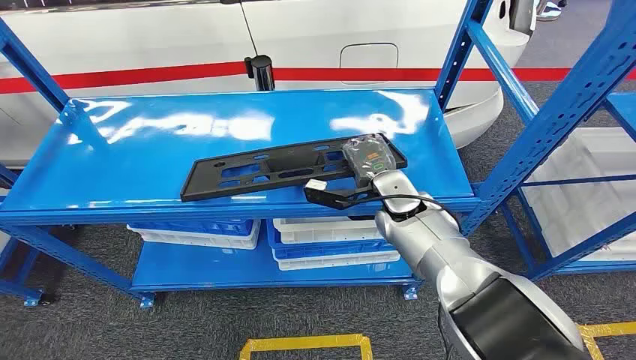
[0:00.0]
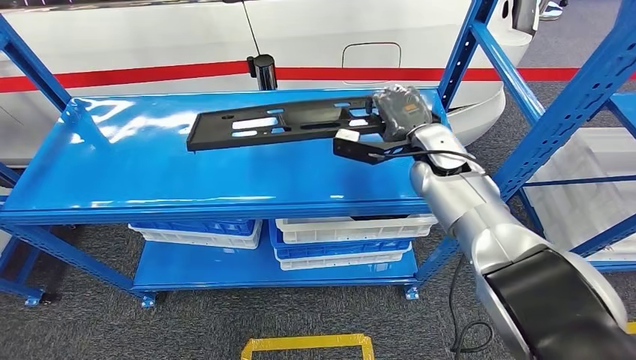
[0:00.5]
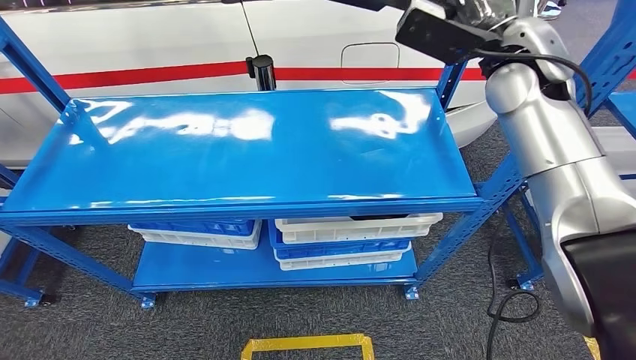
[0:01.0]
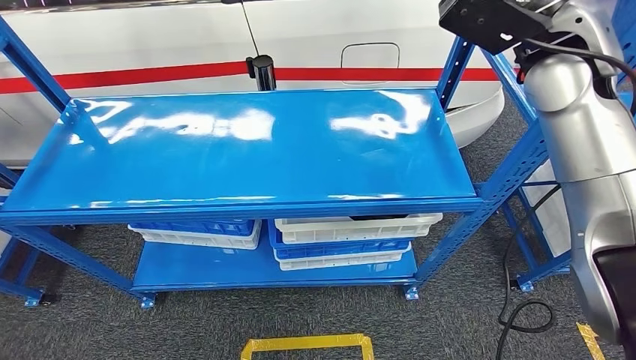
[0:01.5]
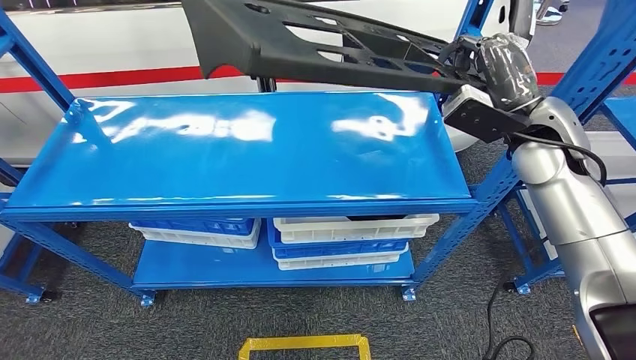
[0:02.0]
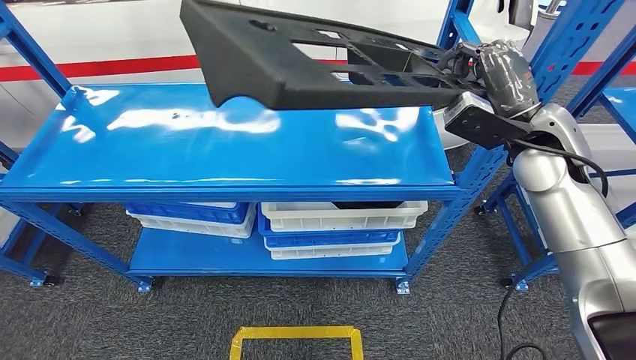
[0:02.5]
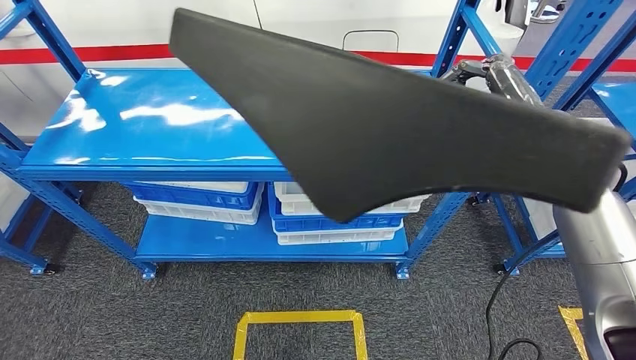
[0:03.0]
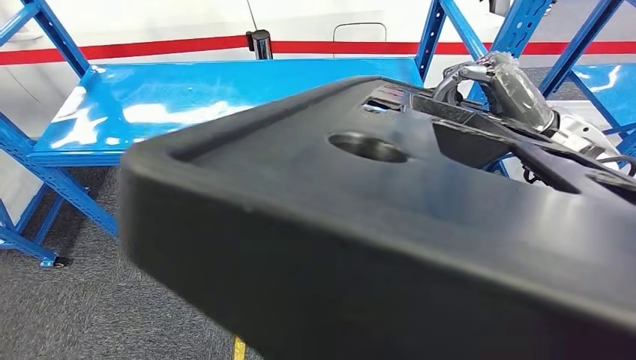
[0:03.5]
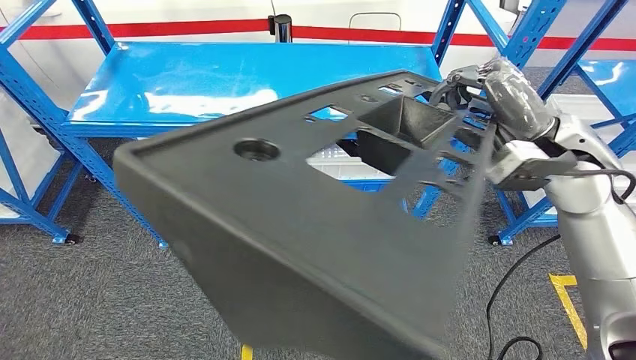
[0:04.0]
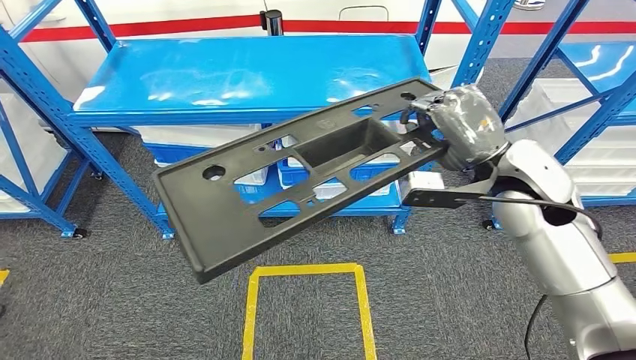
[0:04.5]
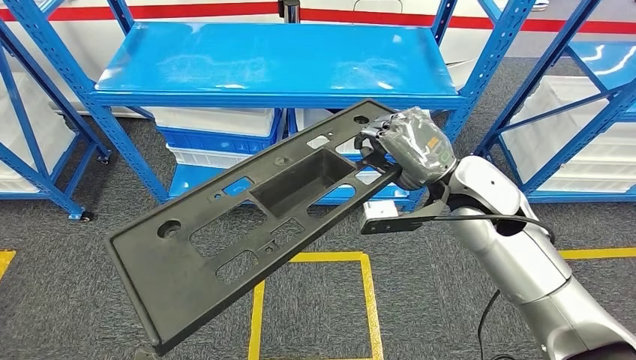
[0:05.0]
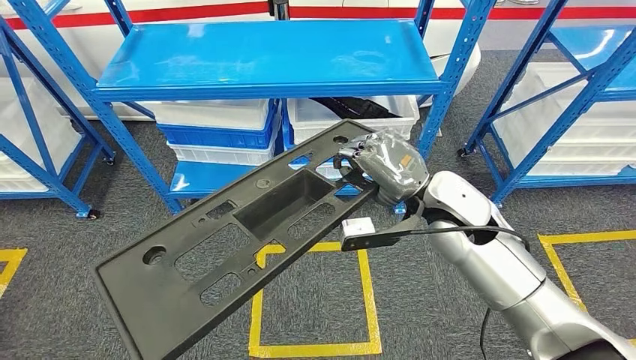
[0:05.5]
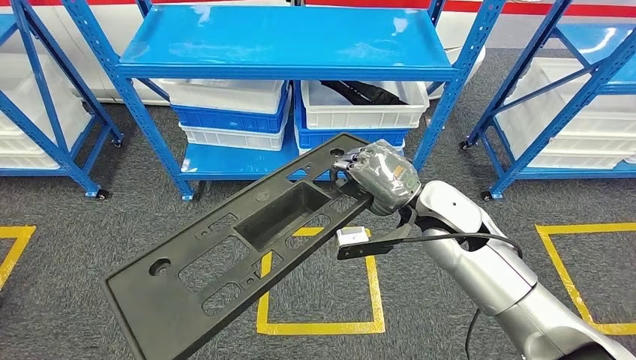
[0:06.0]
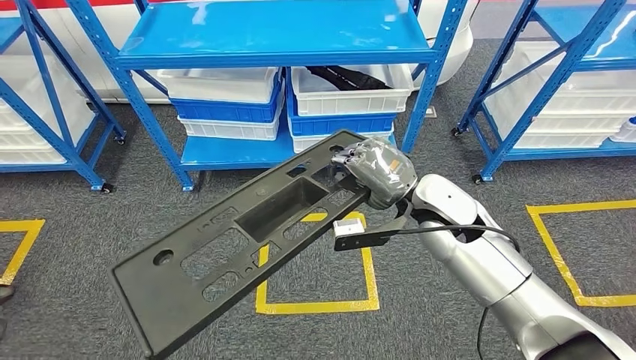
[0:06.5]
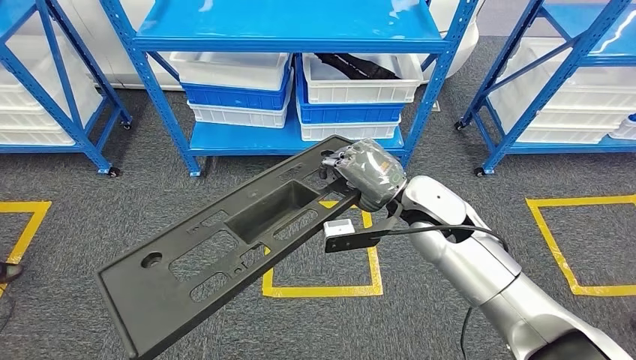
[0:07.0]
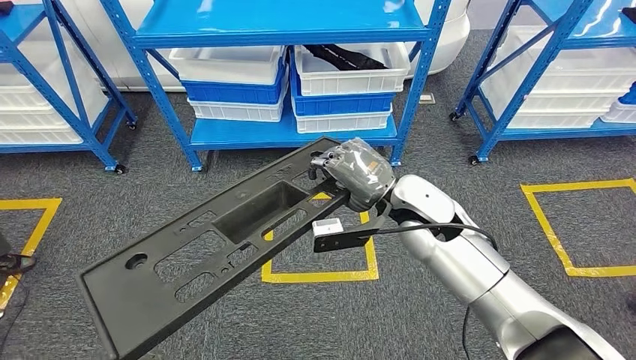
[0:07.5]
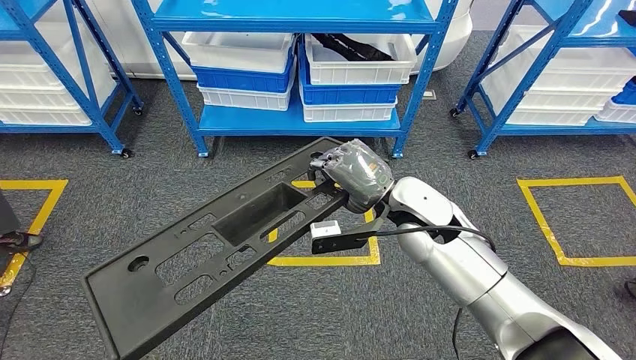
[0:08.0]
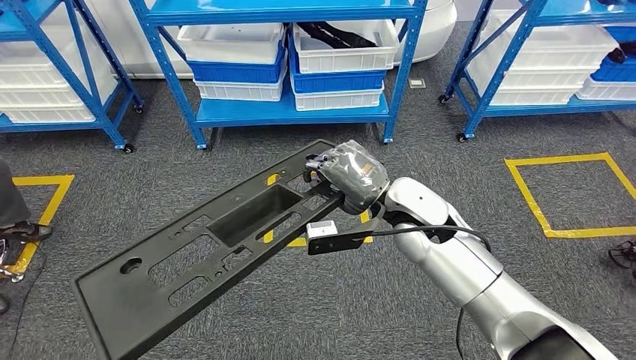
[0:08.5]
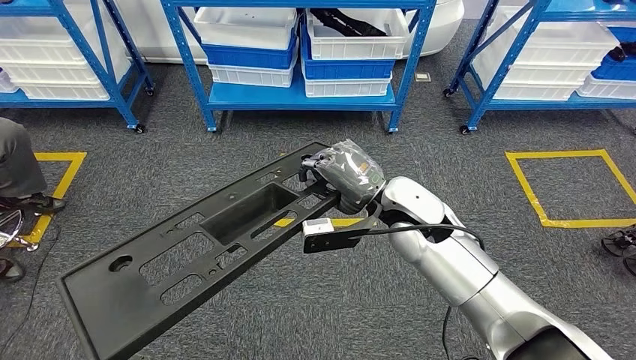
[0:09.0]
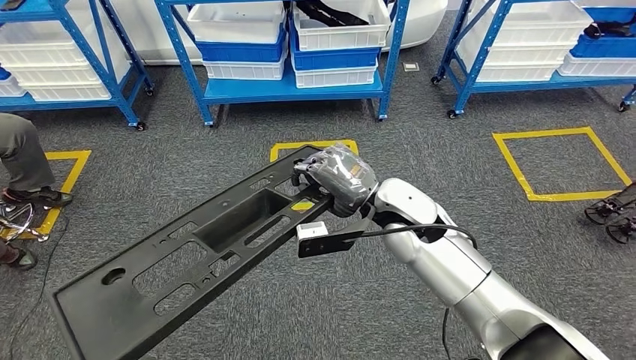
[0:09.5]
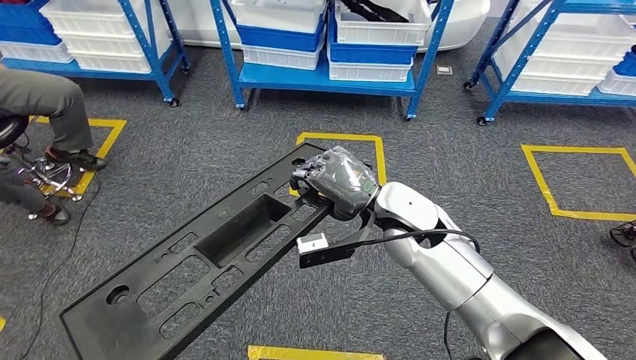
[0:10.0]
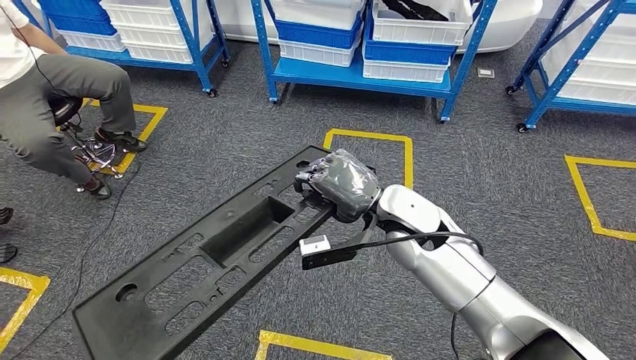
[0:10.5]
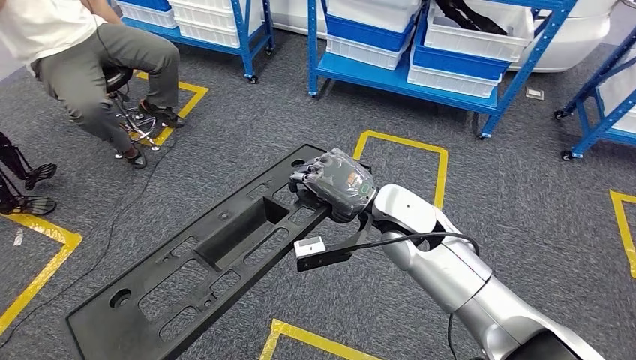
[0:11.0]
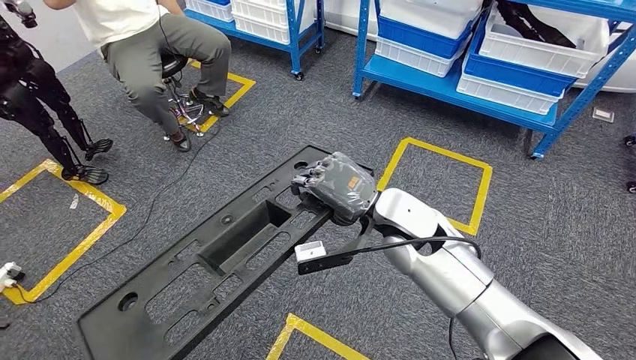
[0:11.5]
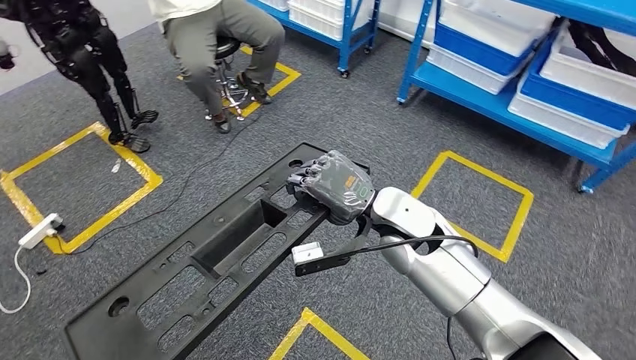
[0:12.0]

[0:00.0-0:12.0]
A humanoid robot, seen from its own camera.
Step, 0:00.0 to 0:05.5: Pick up the large material from the shelf.

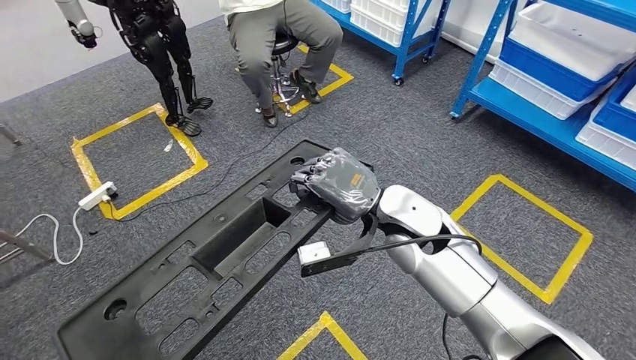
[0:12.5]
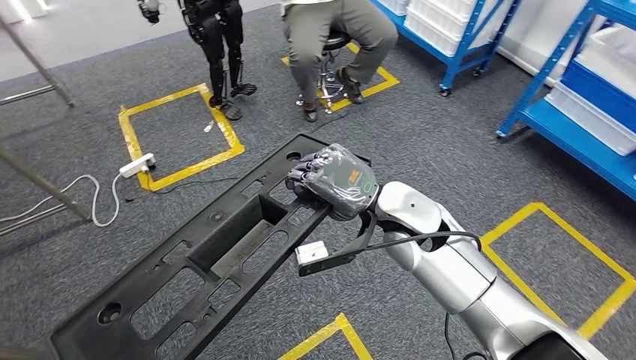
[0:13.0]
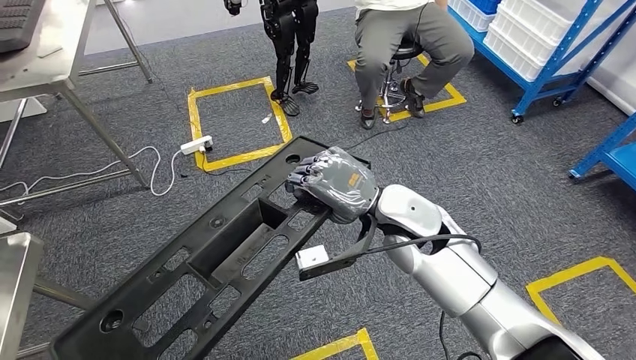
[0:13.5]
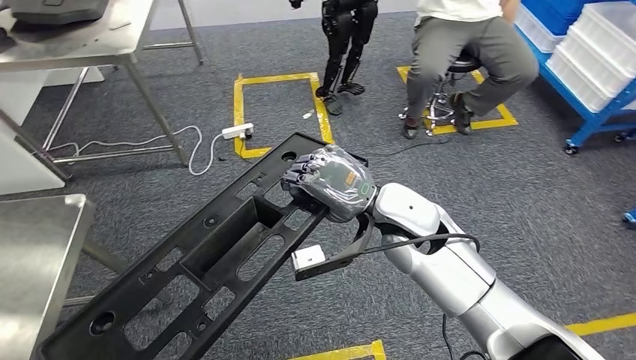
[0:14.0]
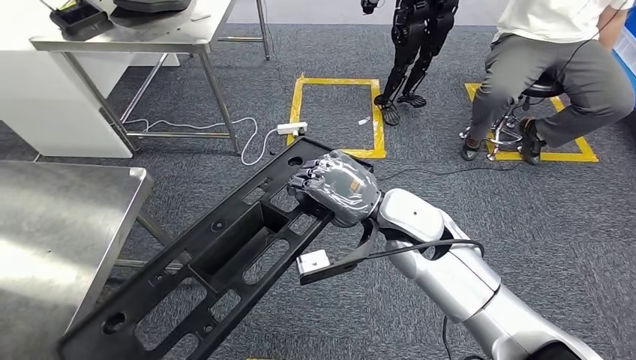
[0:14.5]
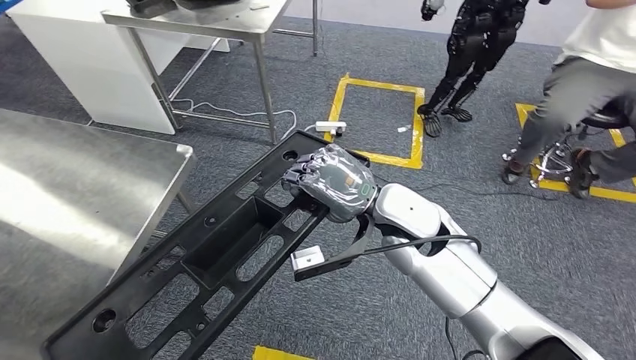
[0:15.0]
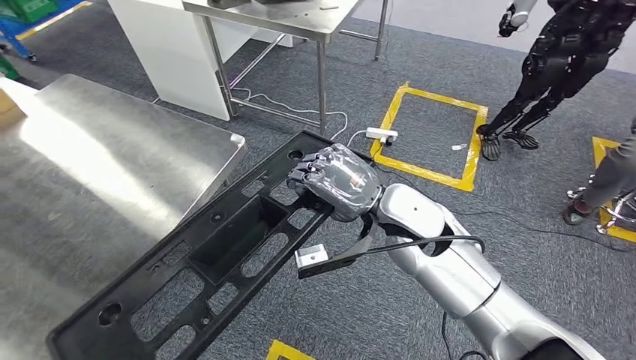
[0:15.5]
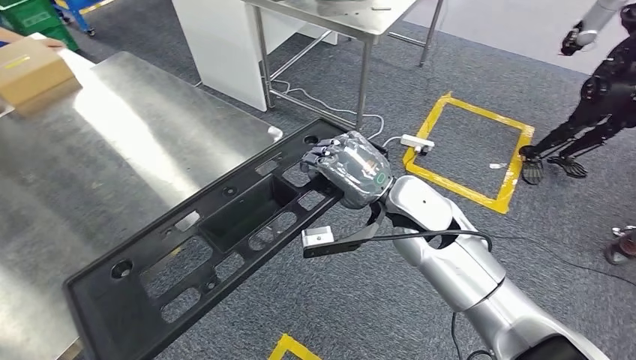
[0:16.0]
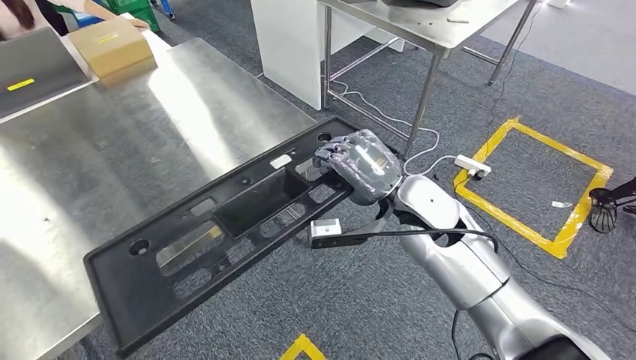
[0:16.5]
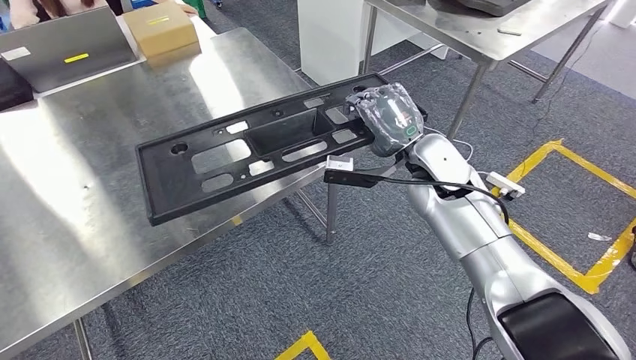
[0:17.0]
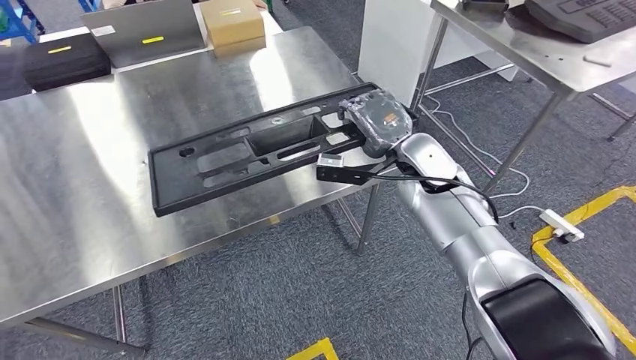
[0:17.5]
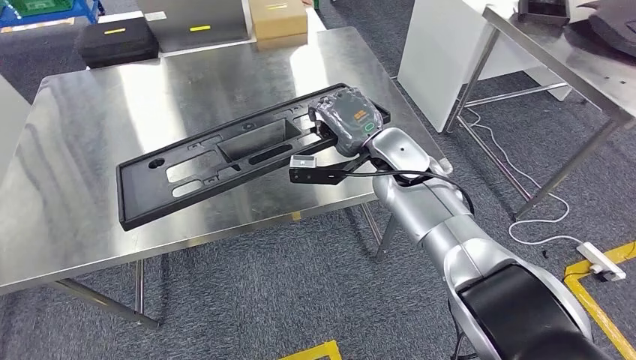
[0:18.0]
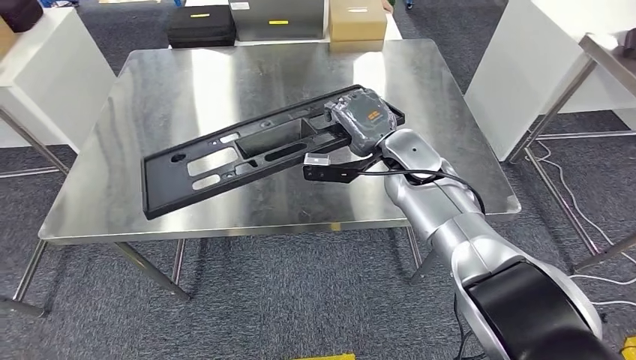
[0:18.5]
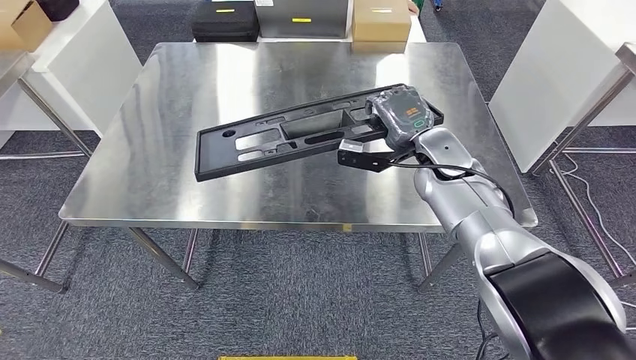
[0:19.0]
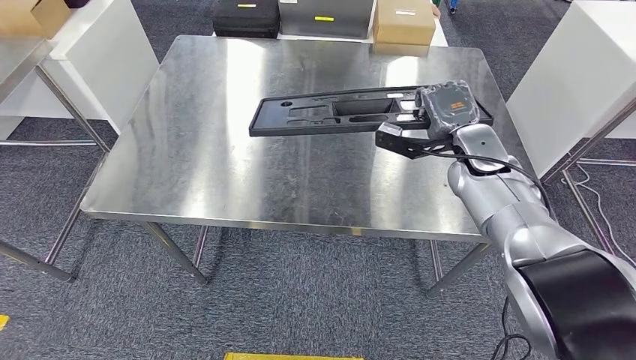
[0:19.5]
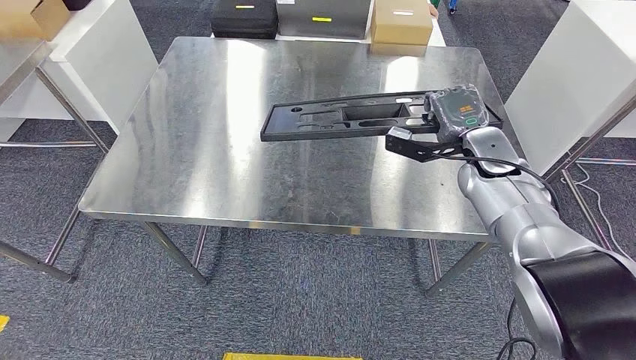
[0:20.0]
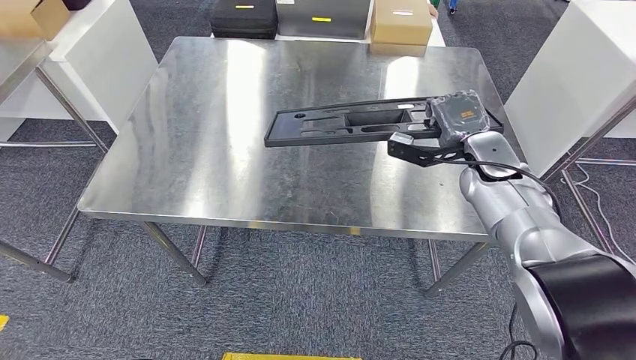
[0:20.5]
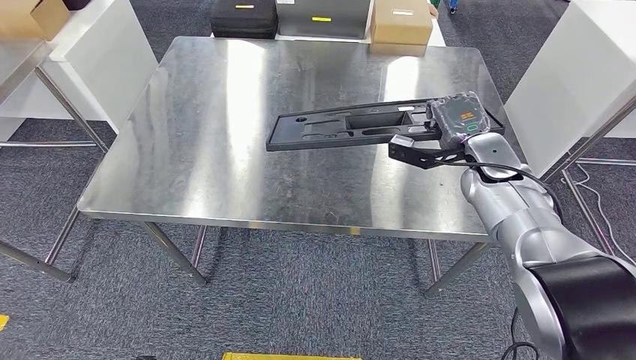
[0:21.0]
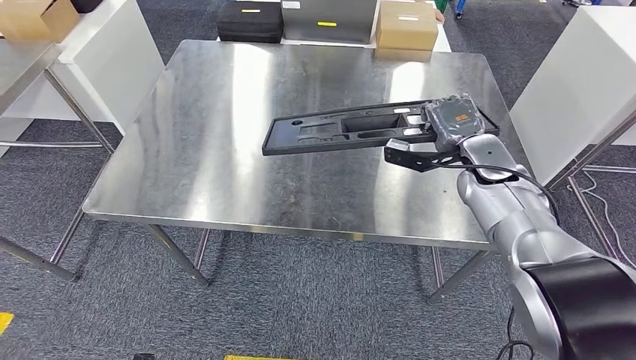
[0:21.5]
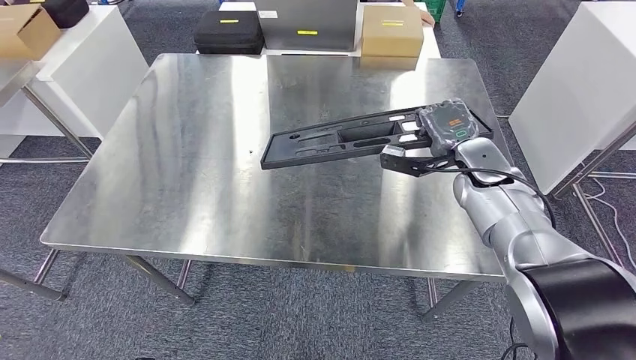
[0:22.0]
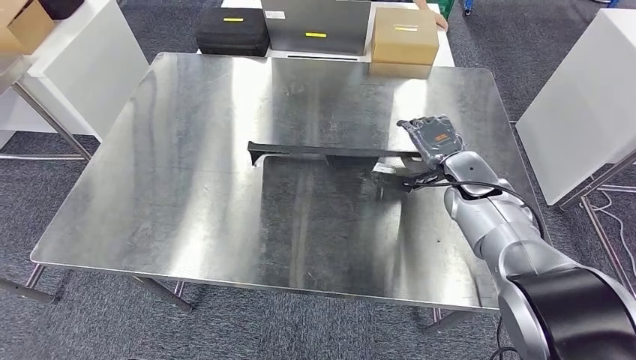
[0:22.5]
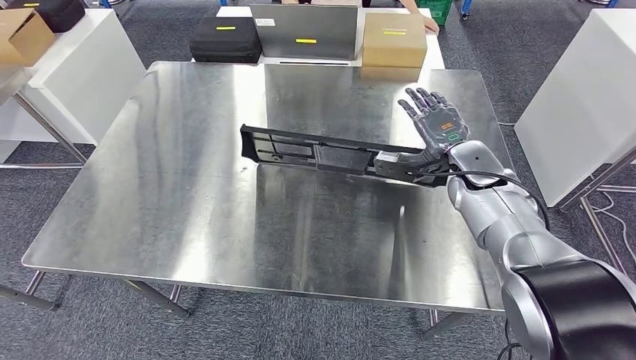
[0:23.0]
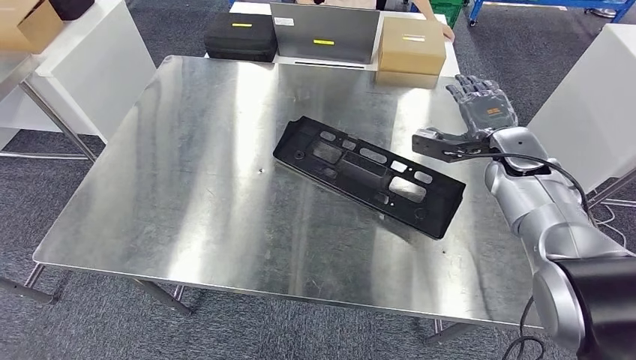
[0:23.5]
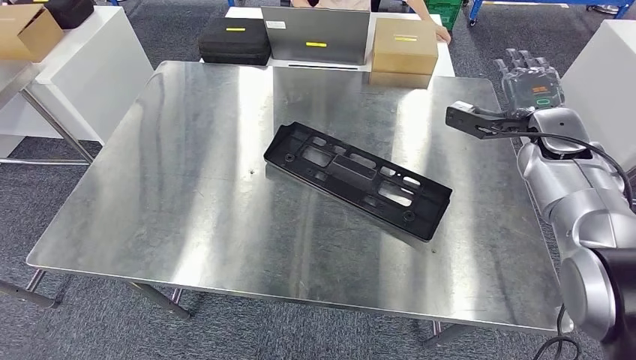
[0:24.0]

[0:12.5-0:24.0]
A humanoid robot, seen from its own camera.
Step, 0:12.5 to 0:15.0: Move the large material to the workbench.
